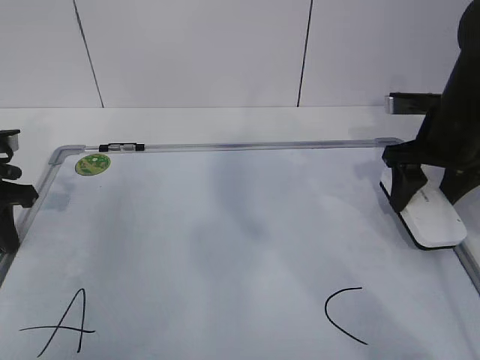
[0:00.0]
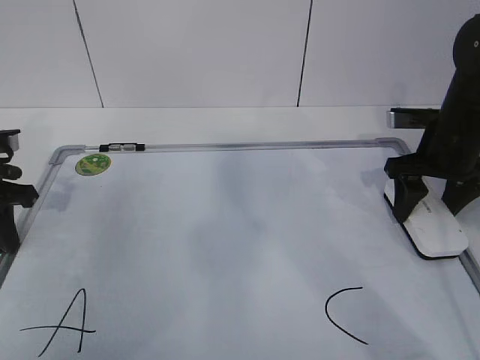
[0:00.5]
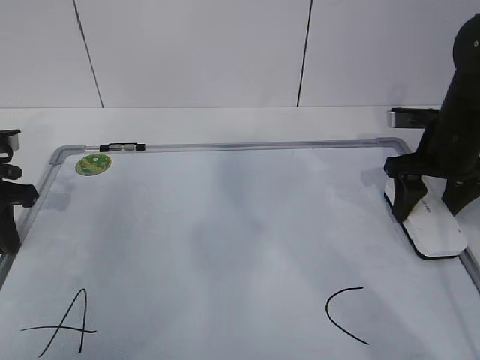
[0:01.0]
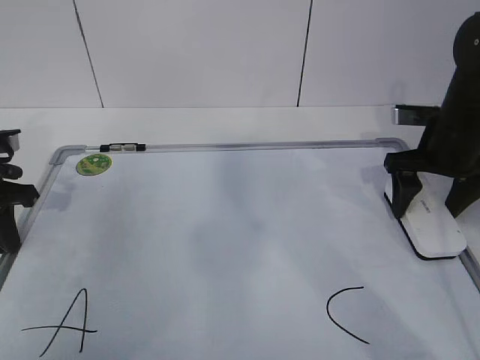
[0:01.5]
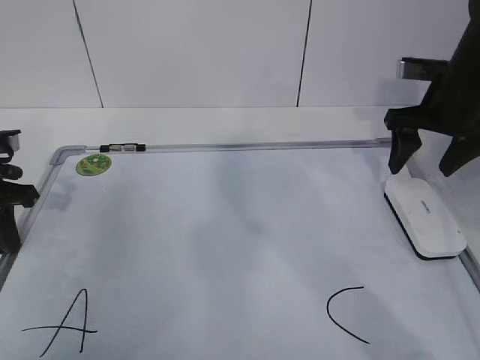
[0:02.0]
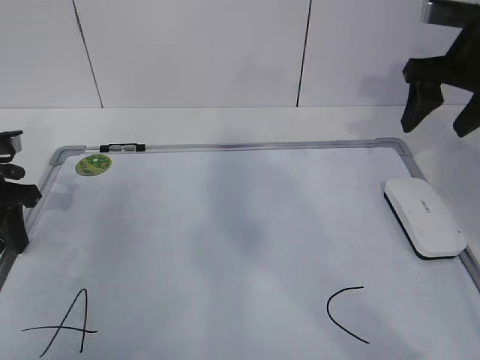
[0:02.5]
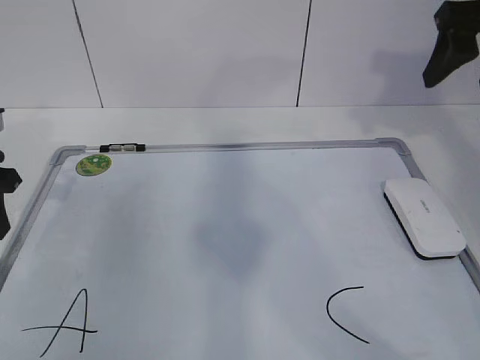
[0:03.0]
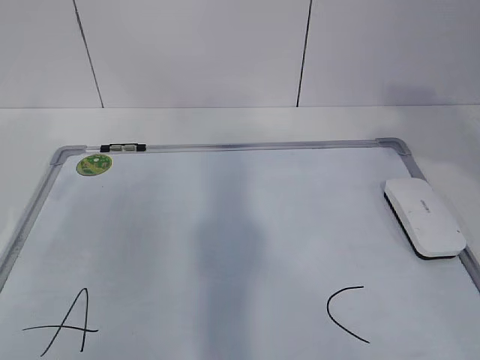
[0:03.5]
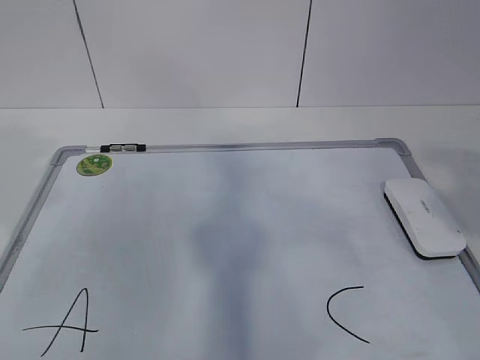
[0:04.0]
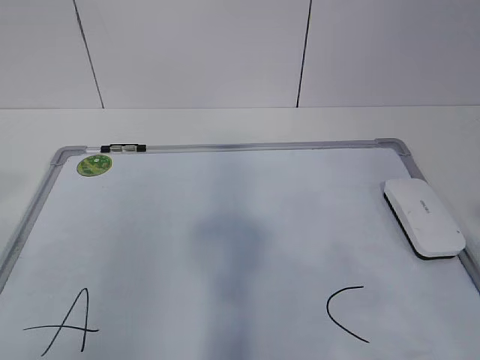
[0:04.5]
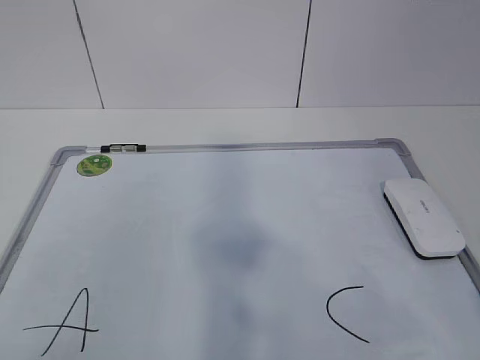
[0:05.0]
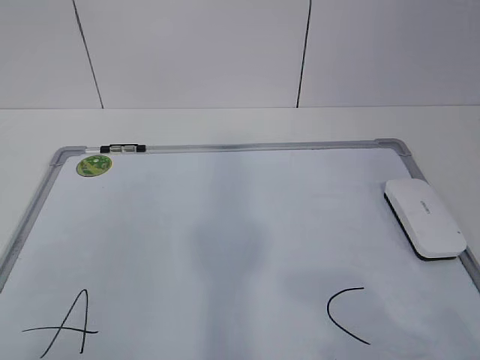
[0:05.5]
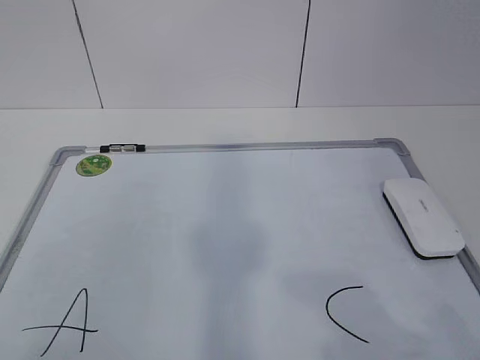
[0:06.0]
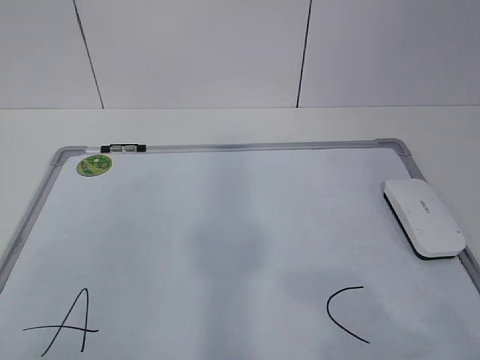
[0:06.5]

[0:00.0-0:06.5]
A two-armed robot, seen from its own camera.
Task of the whole recording: pick up the eraser on the blackboard and erase the letter "B".
0:00.0 to 0:02.0: The grippers make only small movements.
0:02.0 to 0:04.5: The left gripper goes roughly 30 cm backward and upward, and opens up. The right gripper goes approximately 40 cm backward.

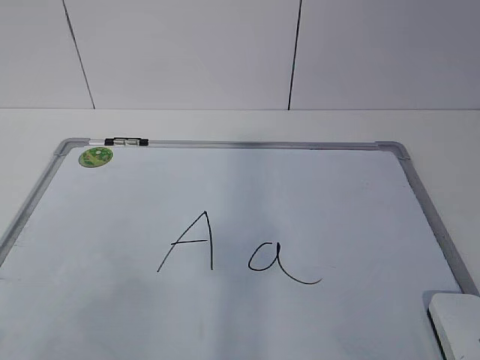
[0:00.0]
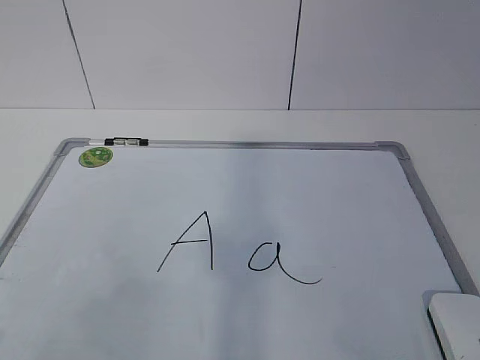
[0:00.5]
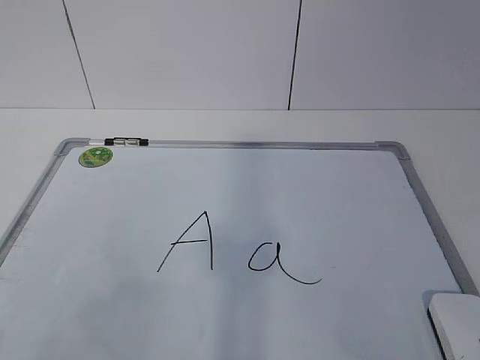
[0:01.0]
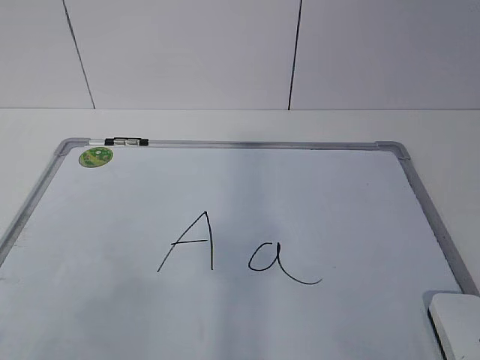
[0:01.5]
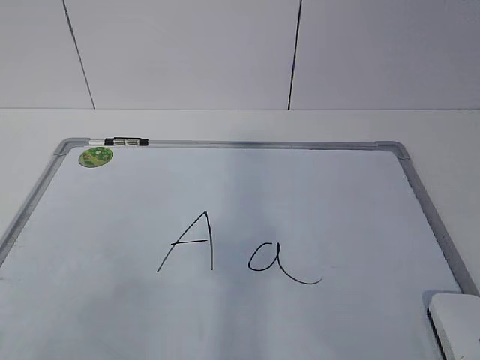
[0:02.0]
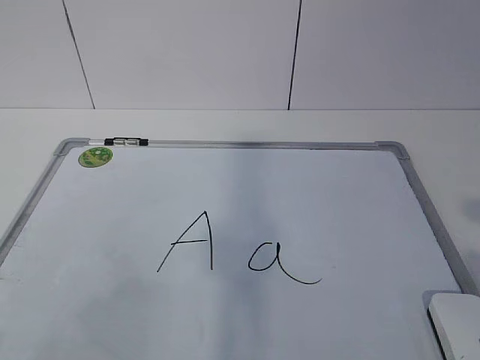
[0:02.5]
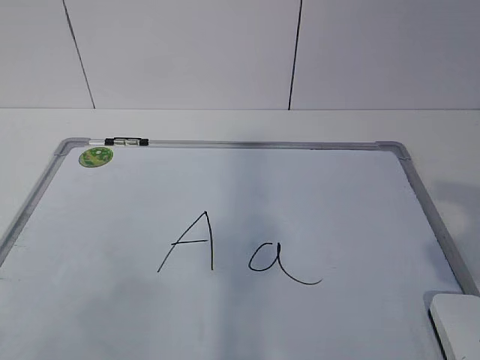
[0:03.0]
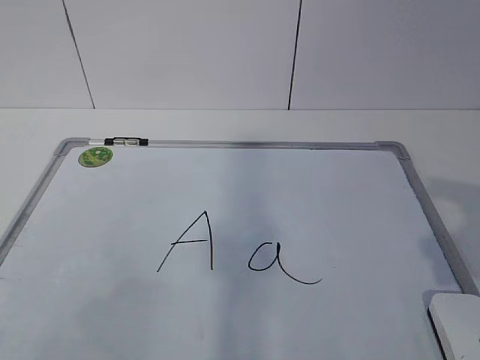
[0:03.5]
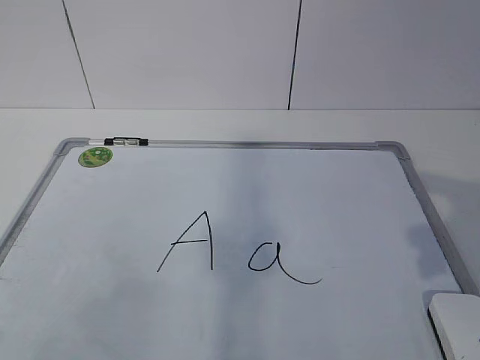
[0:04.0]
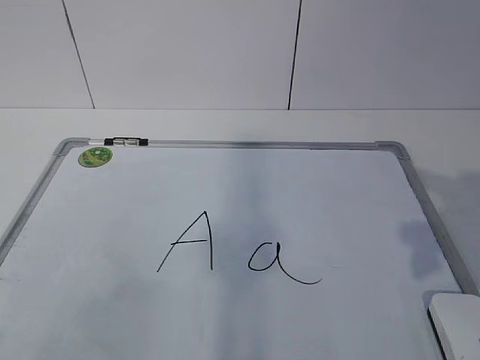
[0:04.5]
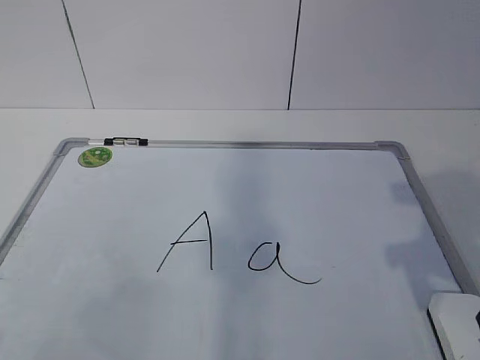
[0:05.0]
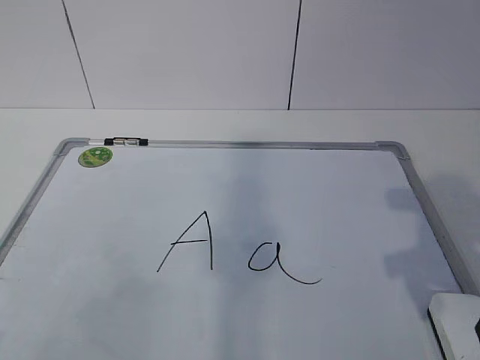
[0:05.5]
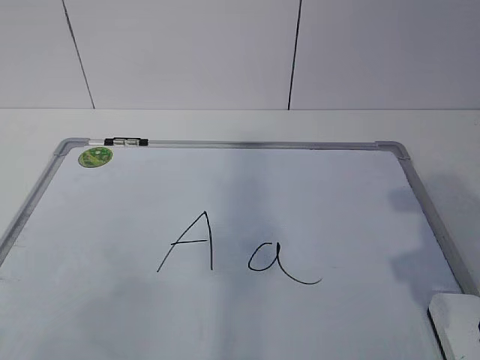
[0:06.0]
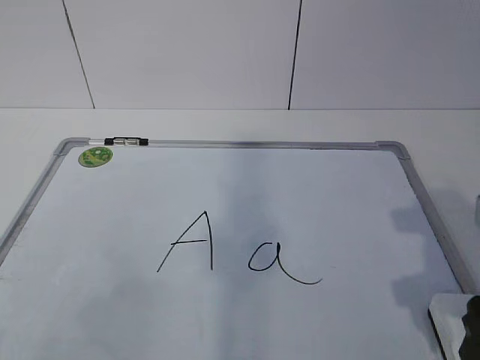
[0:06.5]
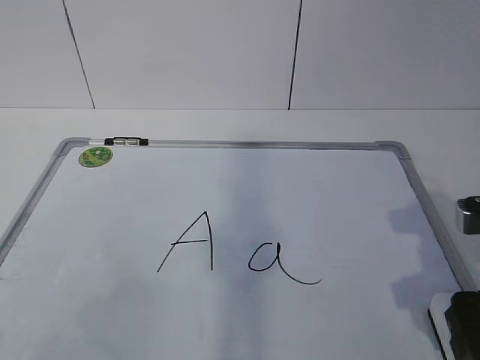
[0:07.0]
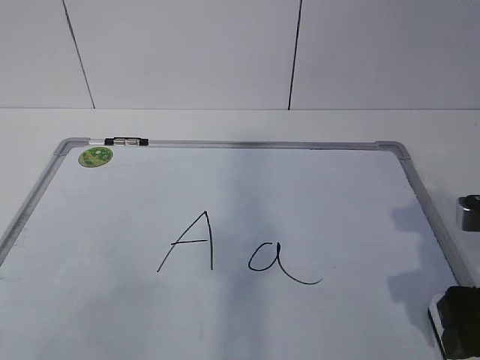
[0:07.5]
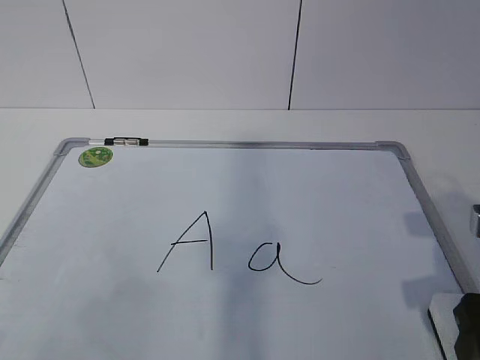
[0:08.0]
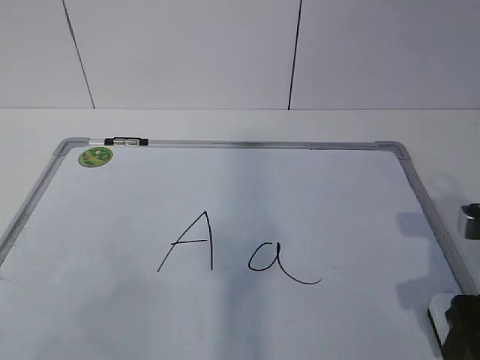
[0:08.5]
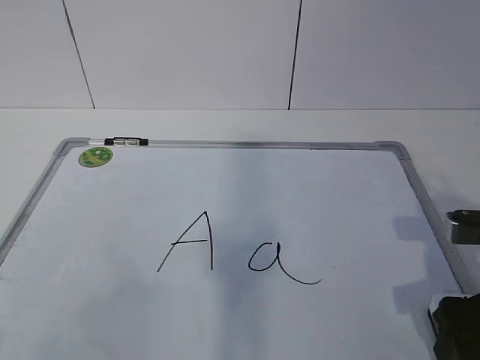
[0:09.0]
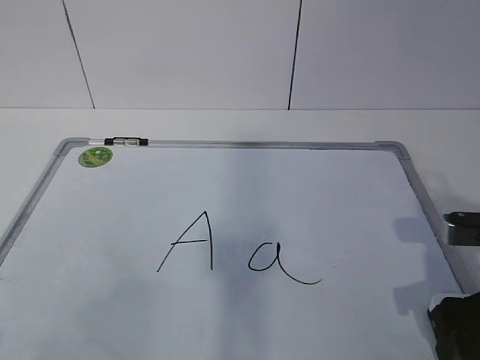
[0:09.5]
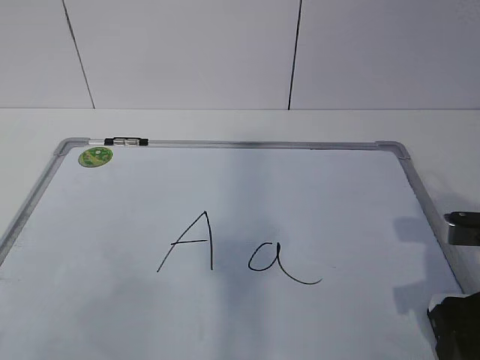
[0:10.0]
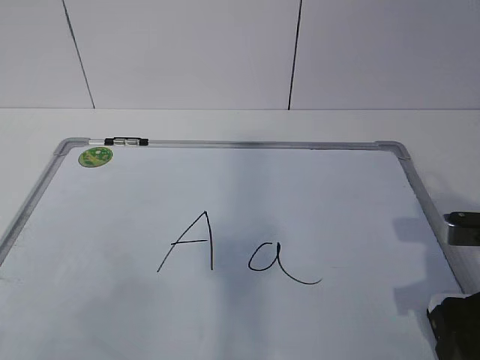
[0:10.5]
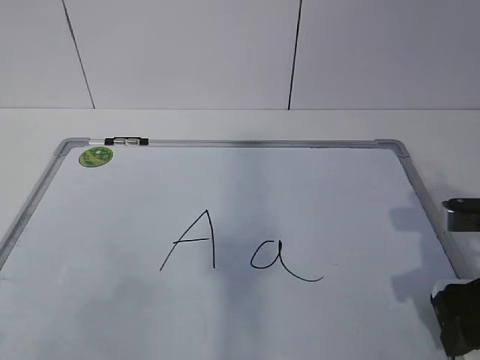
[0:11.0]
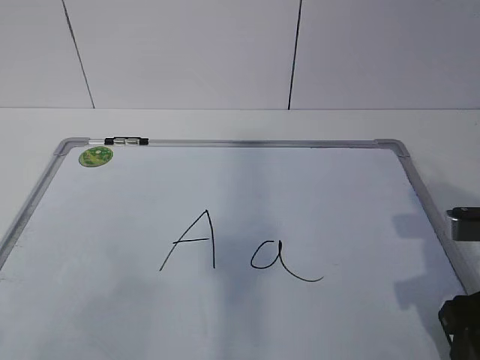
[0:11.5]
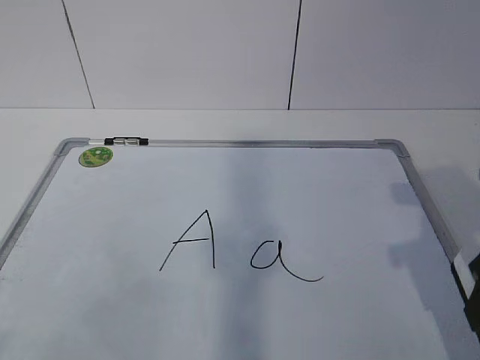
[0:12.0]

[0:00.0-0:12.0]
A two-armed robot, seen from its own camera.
Task of the whole recording: pick up the eraser on the blackboard and erase the letter "a".
Step, 0:00.0 to 0:07.5: Grab the eraser with your right hand.
0:02.0 to 0:04.0: The right gripper goes some 15 cm forward.
0:06.0 to 0:08.0: The right gripper shifts approximately 5 cm downward.
0:08.0 to 0:10.0: The right gripper closes up.
0:10.0 to 0:12.0: The right gripper goes roughly 10 cm upward.

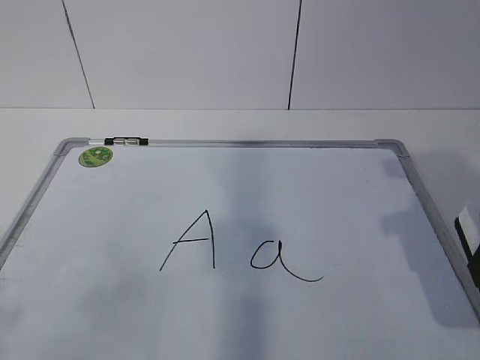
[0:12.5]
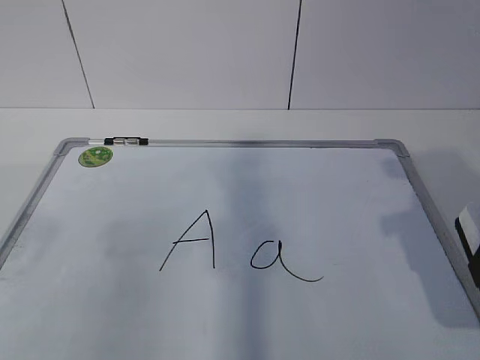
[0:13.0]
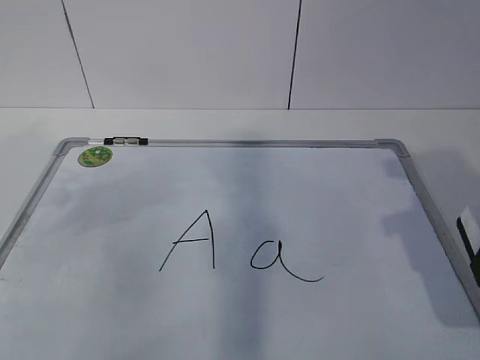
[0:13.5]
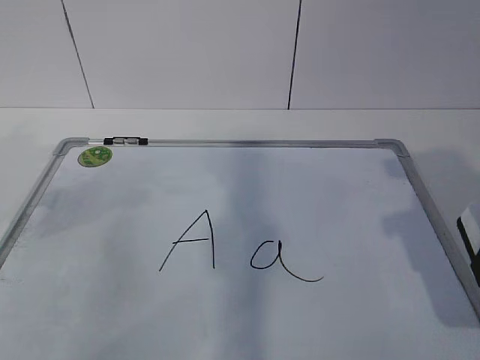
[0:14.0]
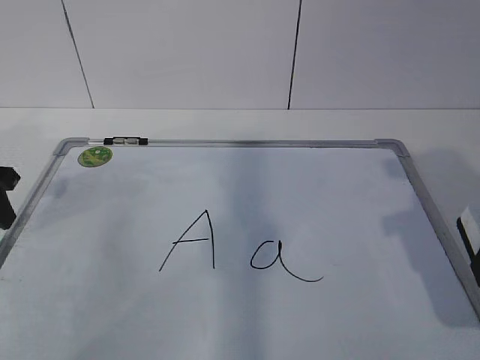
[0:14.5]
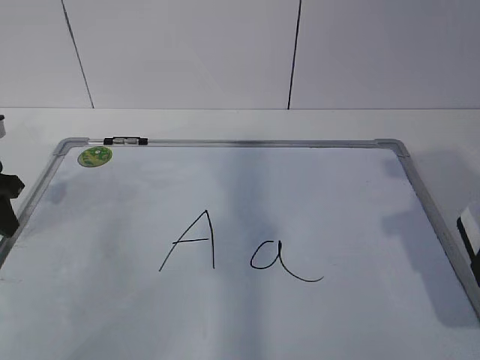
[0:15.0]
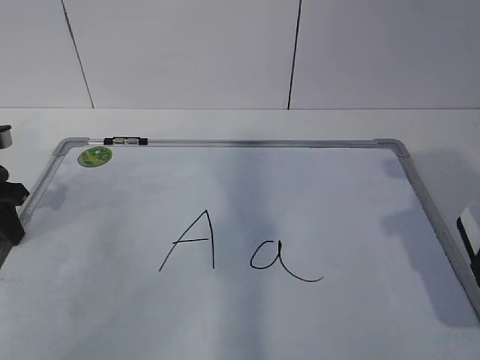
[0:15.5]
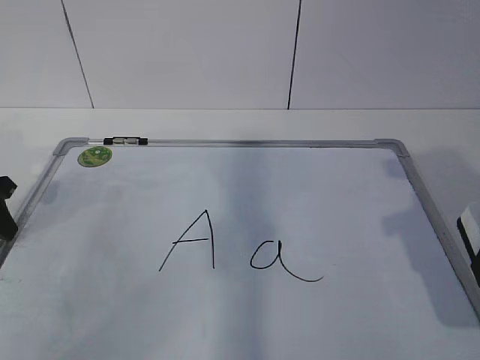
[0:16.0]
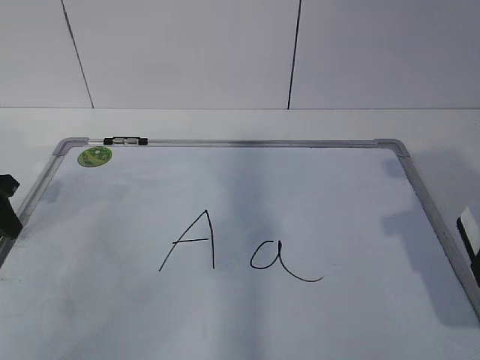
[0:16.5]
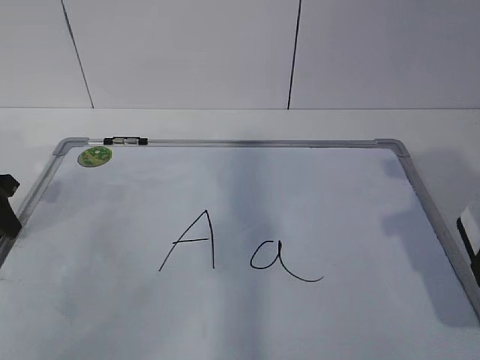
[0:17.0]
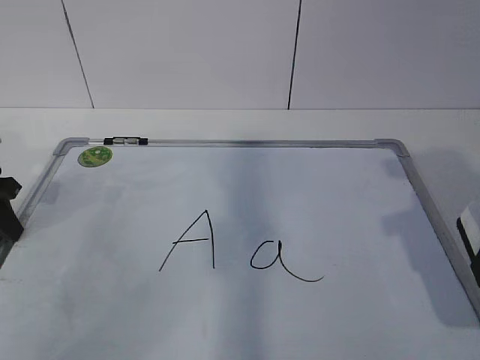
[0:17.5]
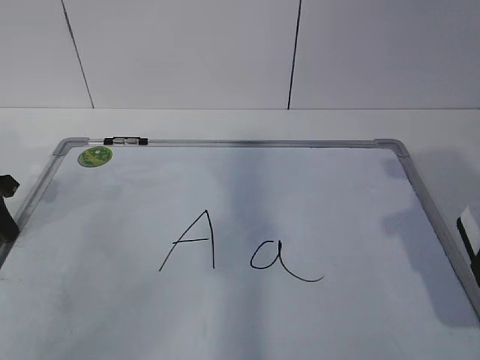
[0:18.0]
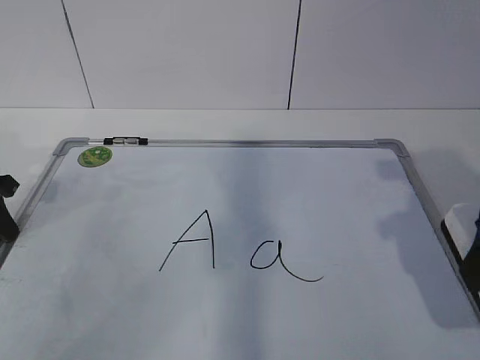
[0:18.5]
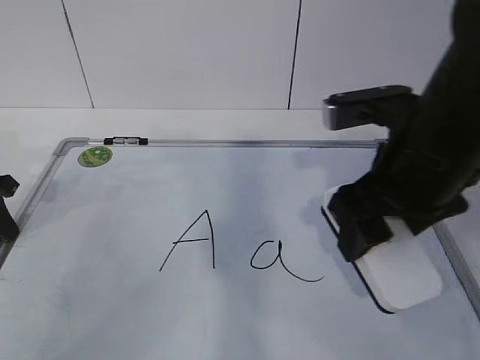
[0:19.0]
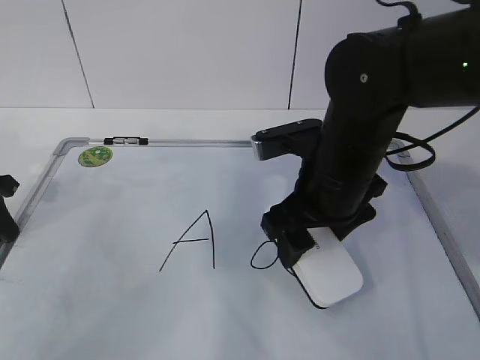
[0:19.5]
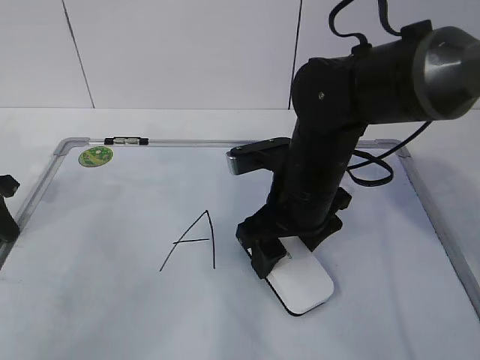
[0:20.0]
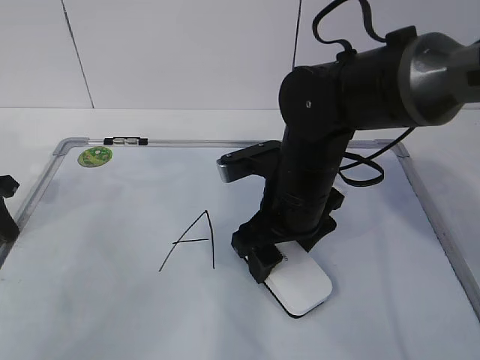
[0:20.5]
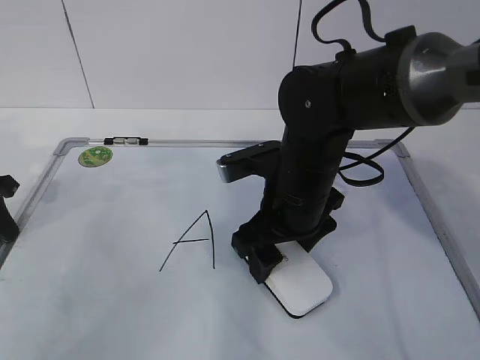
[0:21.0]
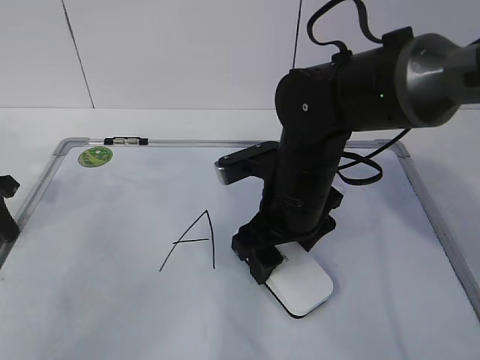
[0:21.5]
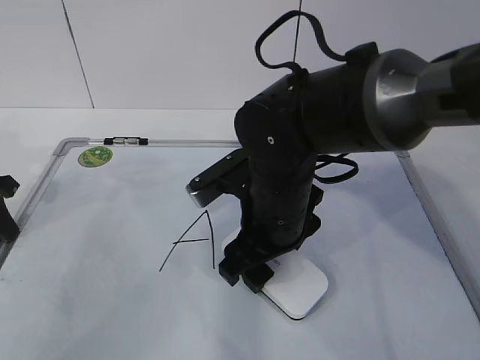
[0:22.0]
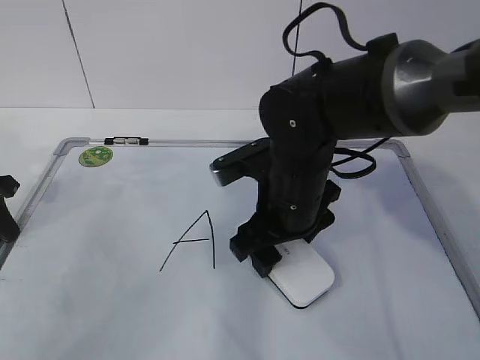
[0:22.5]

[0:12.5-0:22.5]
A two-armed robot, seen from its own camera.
Task of the whole recording: pick up the eraser on the blackboard and erase the letter "a".
Step, 0:15.0 to 0:20.0: Erase the letter a with your right hand.
0:12.5 to 0:14.5: The left gripper travels forward by some 30 cm.
0:18.5 to 0:20.5: The right gripper goes some 25 cm to the left, forward and downward.
0:20.5 to 0:22.5: The grippers make only small movements.
